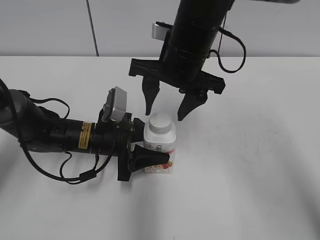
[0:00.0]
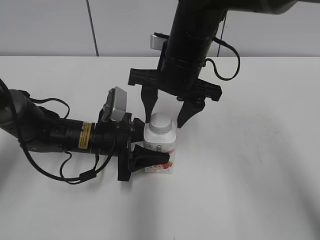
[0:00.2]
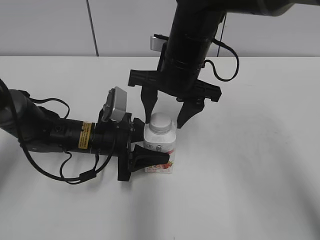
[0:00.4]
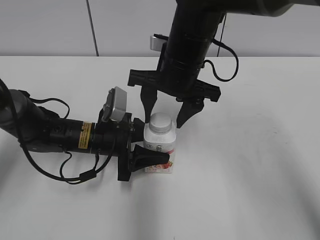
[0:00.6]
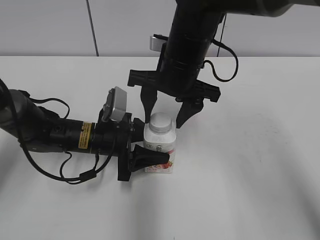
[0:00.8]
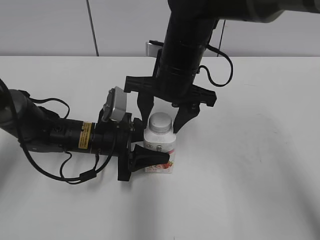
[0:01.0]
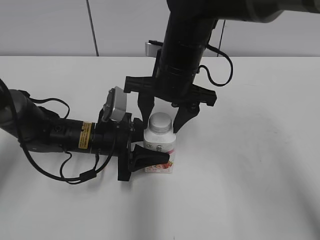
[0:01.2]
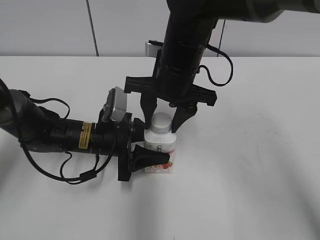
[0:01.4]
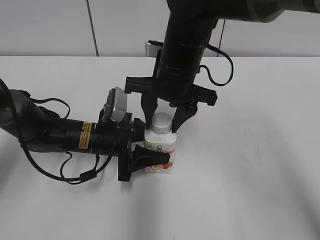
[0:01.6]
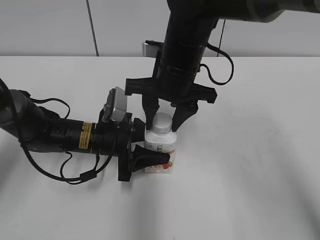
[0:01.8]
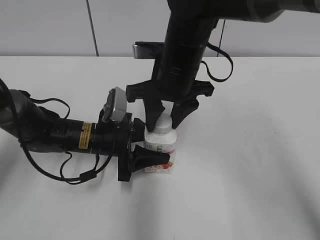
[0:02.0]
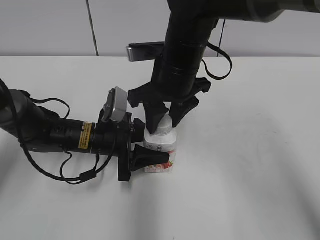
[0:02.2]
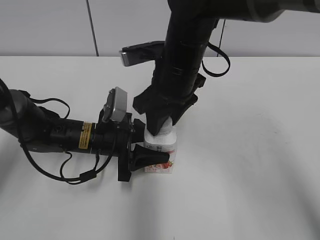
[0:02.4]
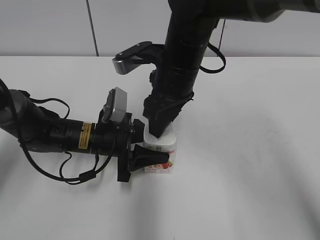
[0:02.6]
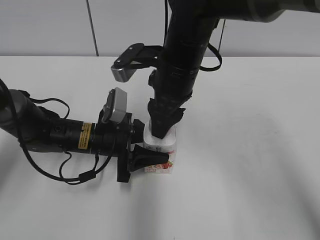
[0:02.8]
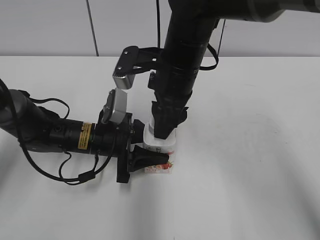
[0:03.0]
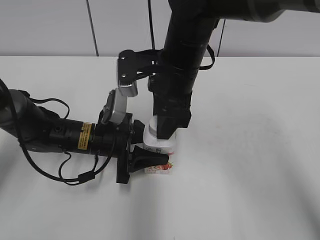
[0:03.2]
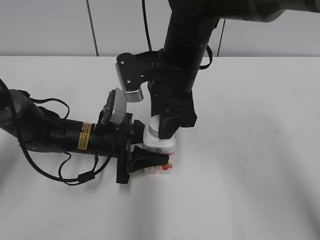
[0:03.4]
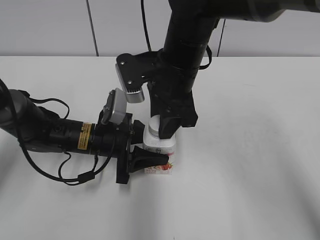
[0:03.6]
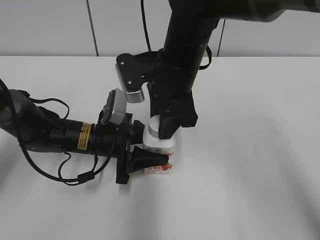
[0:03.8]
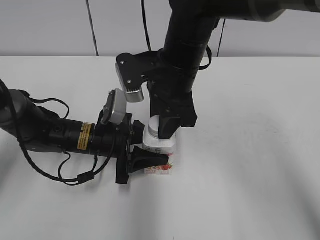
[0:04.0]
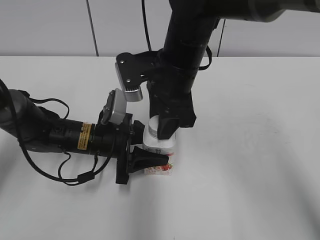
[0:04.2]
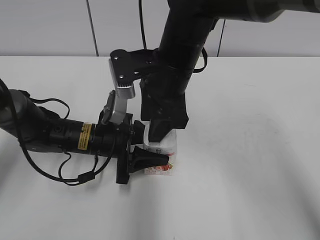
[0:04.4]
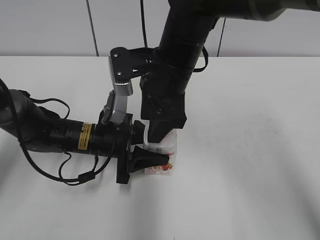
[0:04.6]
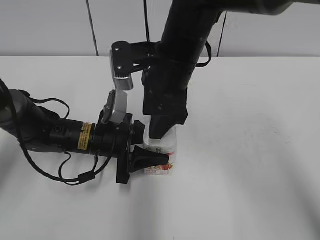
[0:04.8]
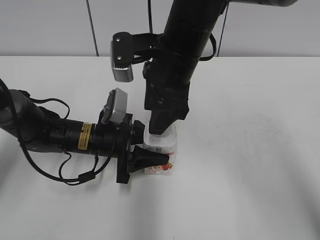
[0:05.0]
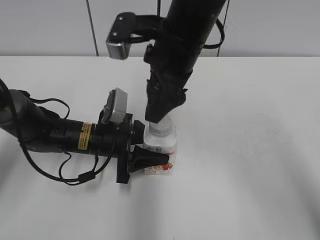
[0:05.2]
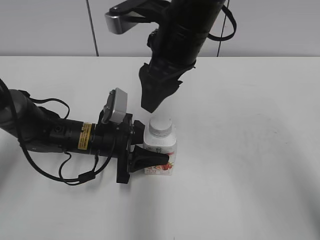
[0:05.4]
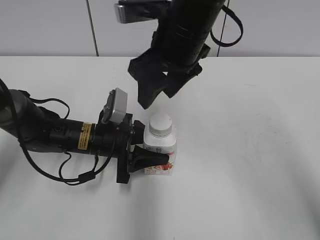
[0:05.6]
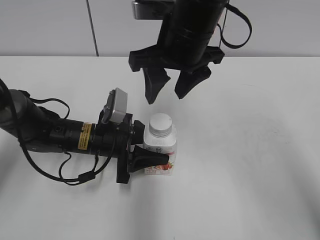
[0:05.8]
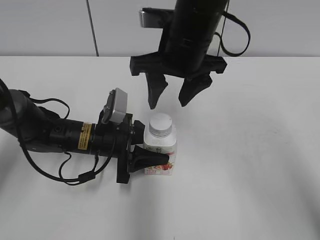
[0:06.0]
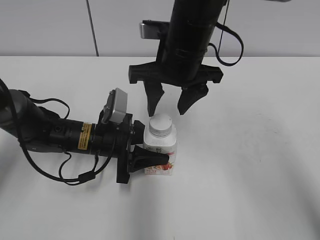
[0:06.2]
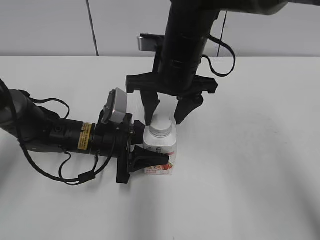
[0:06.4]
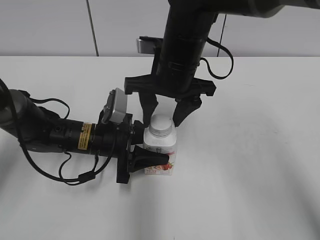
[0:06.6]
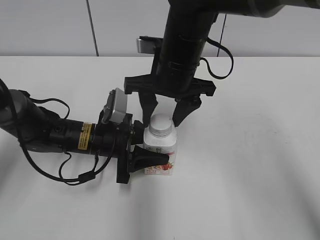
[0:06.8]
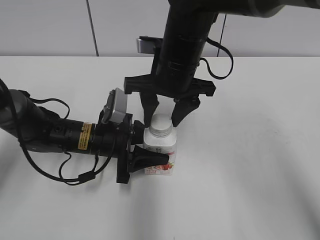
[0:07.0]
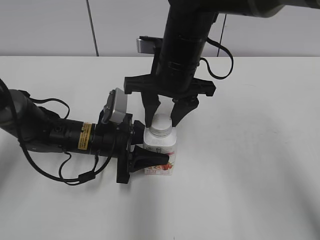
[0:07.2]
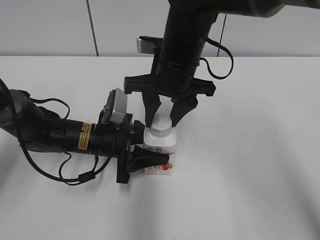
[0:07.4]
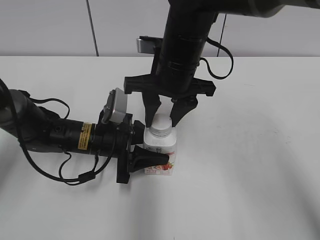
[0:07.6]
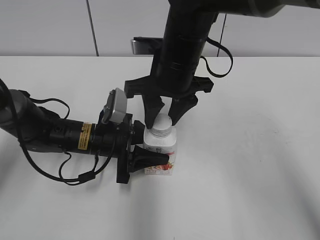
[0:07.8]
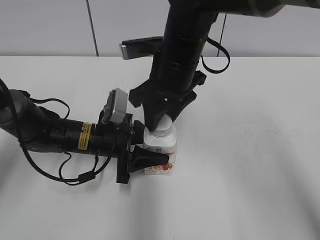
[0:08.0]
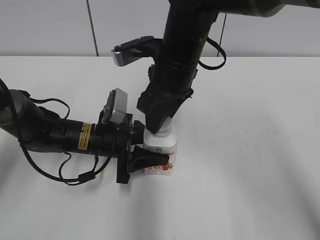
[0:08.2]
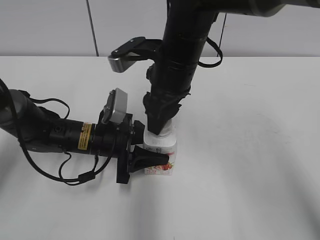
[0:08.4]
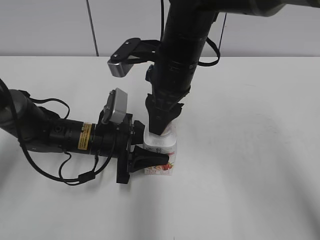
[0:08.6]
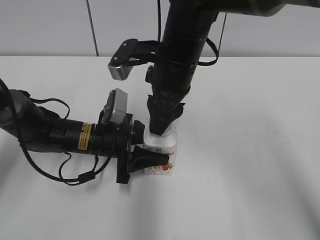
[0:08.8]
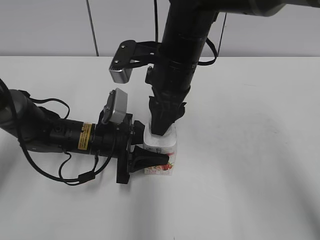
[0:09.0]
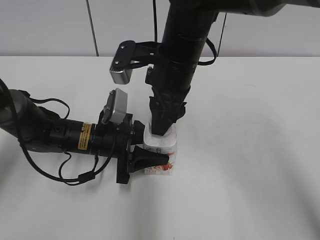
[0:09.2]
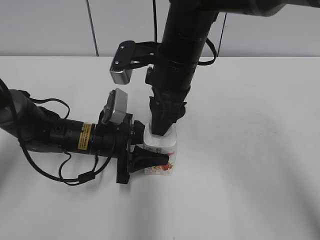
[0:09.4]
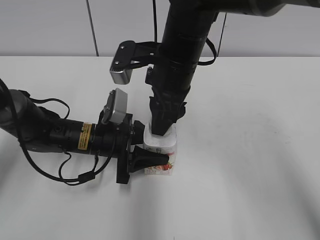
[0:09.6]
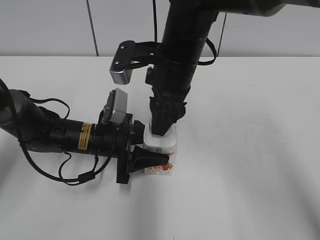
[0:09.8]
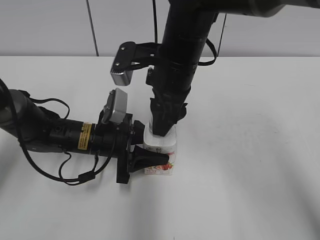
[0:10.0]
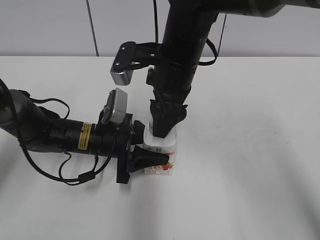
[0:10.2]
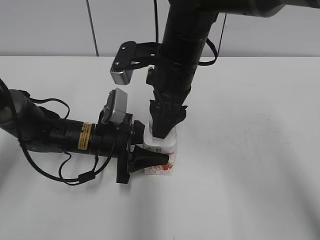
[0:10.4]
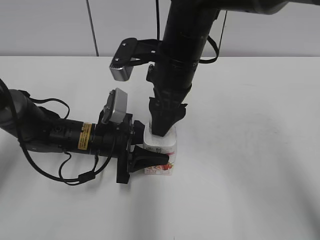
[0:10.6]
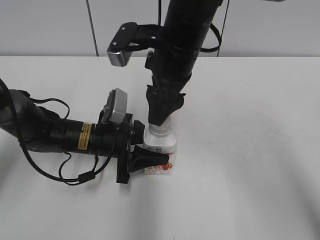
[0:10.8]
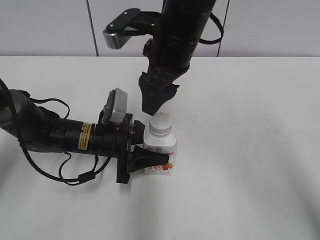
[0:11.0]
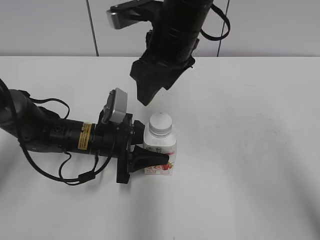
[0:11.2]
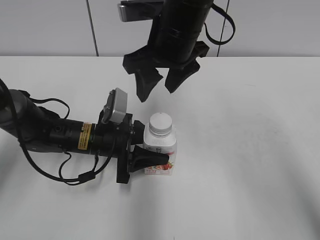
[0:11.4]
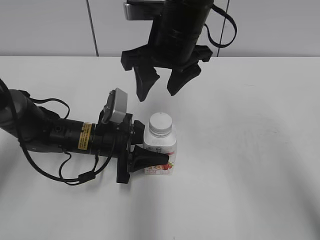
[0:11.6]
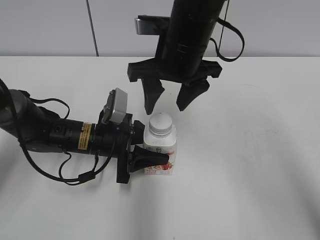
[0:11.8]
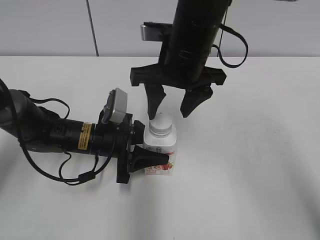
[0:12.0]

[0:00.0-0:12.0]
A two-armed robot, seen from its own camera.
0:00.0 to 0:01.6: The right gripper closes.
0:04.4 to 0:06.0: The right gripper changes place by some 5 cm.
0:06.0 to 0:07.6: The right gripper closes.
0:09.0 to 0:10.4: The right gripper opens up.

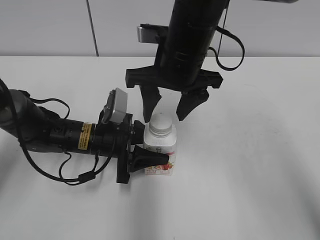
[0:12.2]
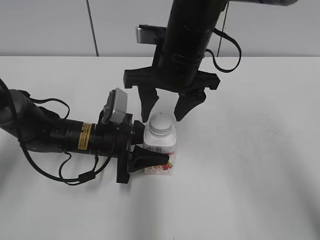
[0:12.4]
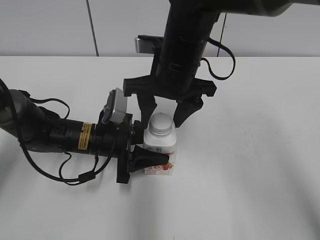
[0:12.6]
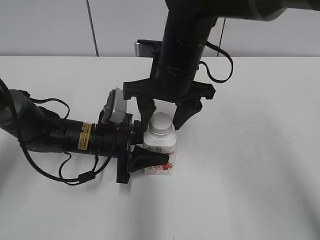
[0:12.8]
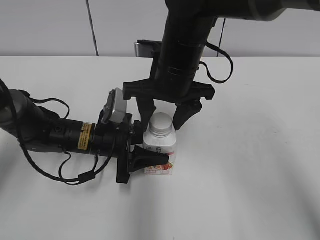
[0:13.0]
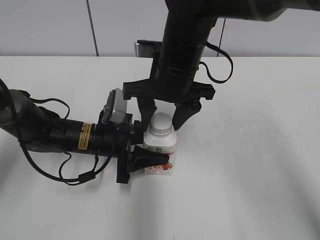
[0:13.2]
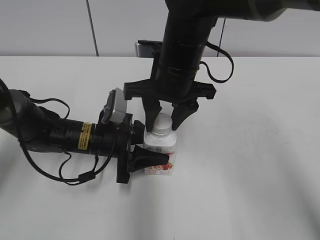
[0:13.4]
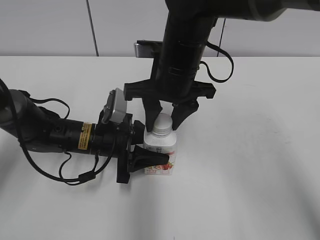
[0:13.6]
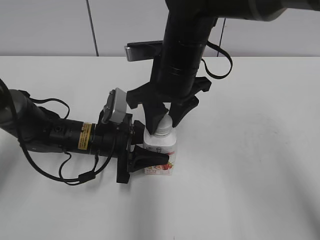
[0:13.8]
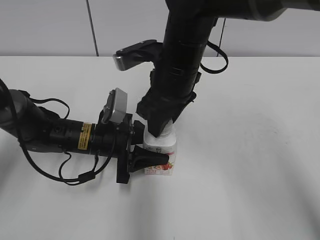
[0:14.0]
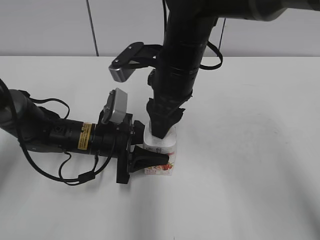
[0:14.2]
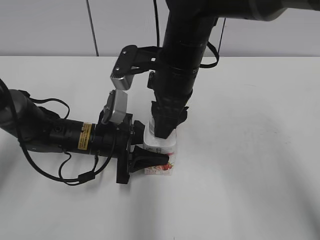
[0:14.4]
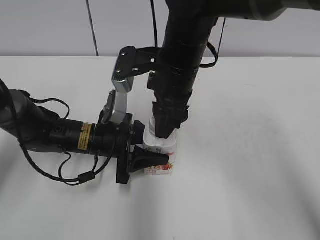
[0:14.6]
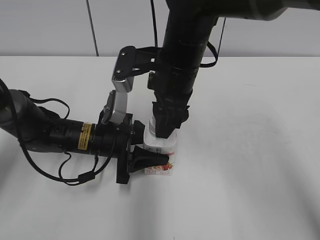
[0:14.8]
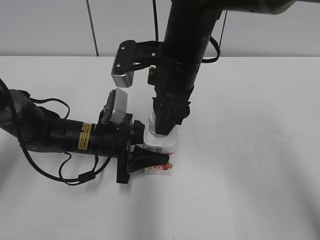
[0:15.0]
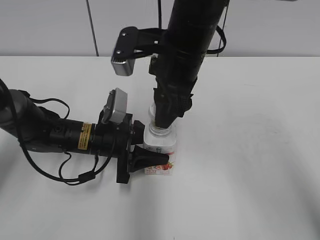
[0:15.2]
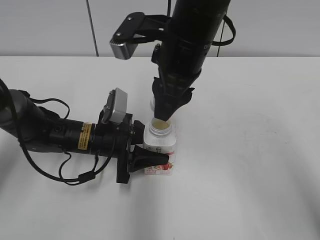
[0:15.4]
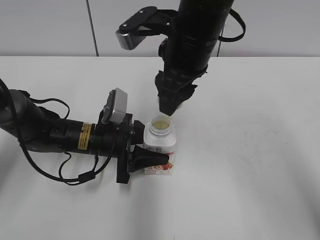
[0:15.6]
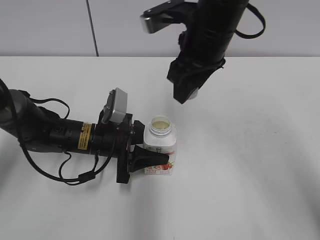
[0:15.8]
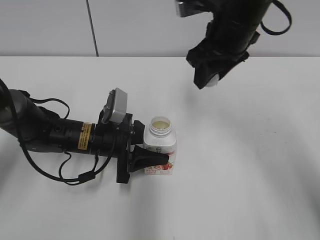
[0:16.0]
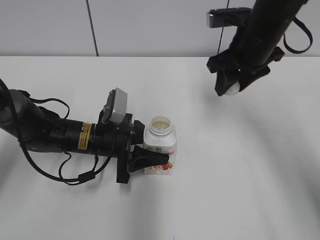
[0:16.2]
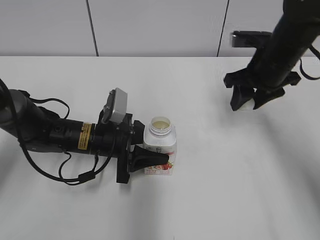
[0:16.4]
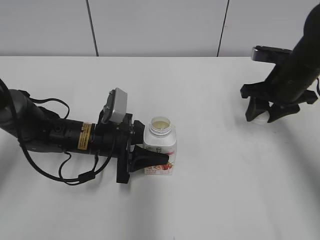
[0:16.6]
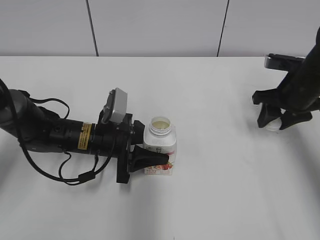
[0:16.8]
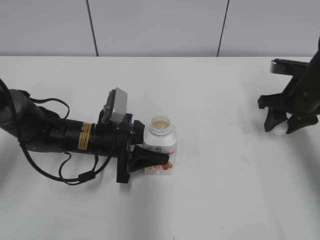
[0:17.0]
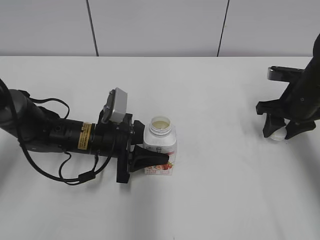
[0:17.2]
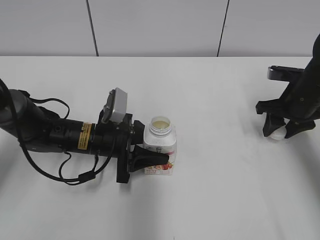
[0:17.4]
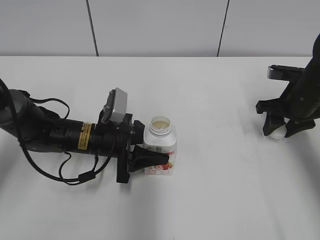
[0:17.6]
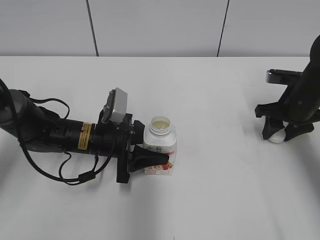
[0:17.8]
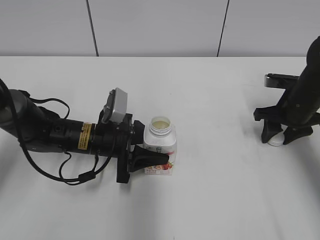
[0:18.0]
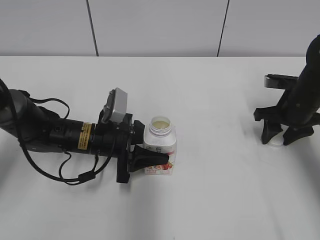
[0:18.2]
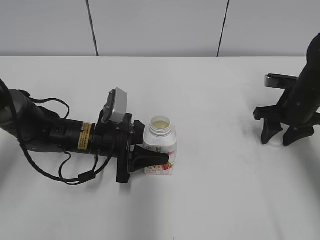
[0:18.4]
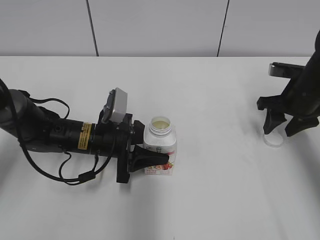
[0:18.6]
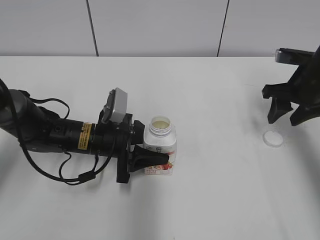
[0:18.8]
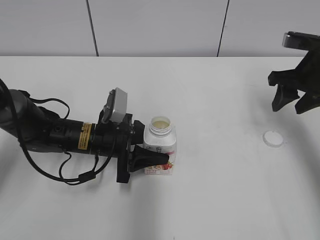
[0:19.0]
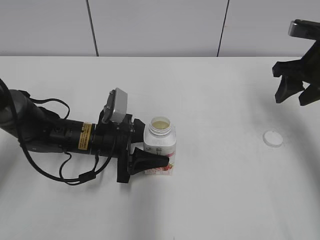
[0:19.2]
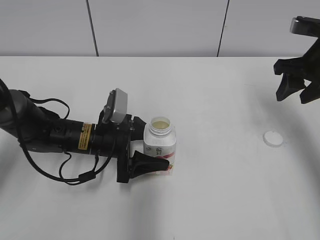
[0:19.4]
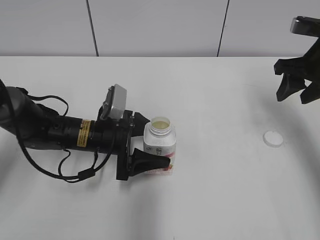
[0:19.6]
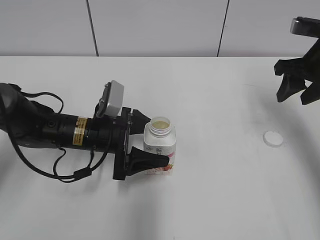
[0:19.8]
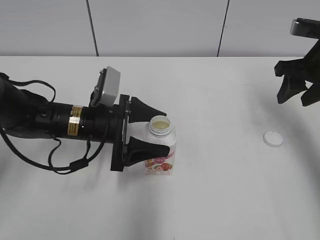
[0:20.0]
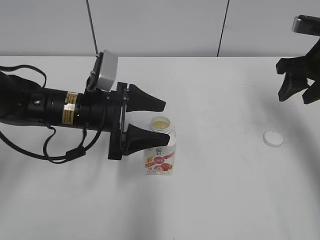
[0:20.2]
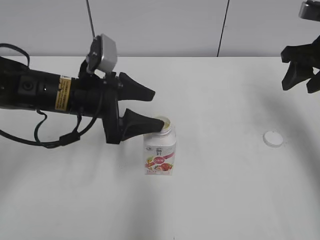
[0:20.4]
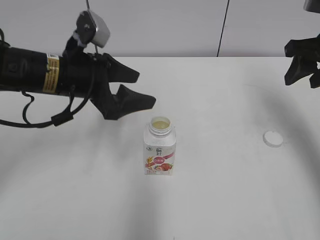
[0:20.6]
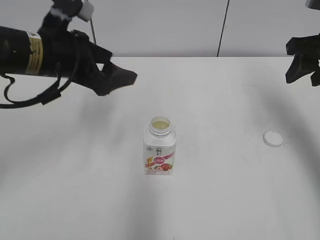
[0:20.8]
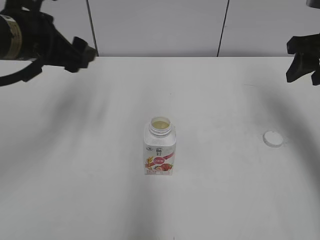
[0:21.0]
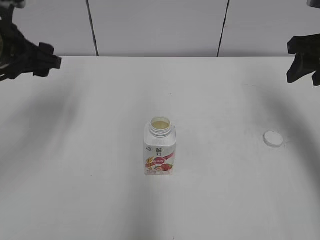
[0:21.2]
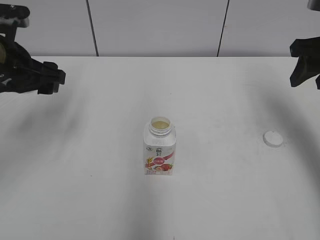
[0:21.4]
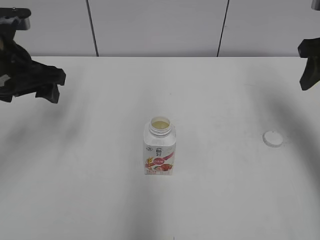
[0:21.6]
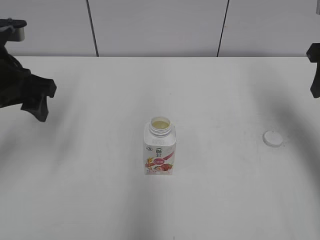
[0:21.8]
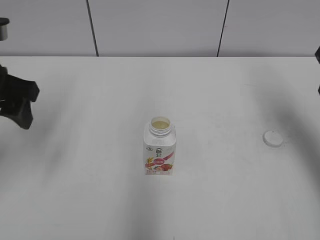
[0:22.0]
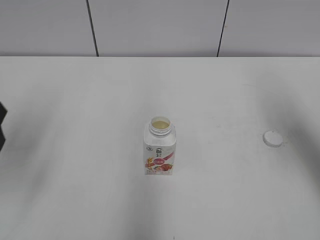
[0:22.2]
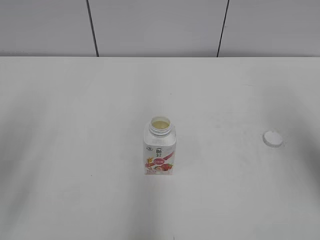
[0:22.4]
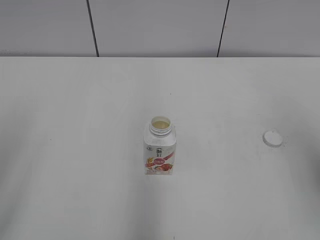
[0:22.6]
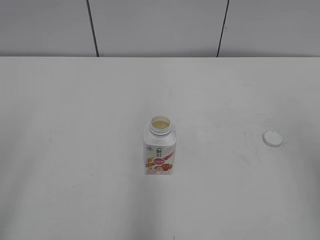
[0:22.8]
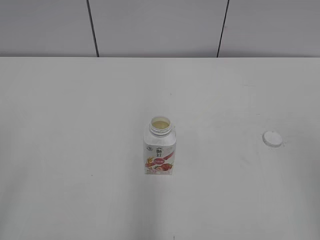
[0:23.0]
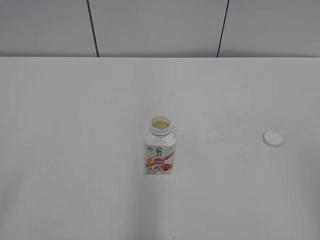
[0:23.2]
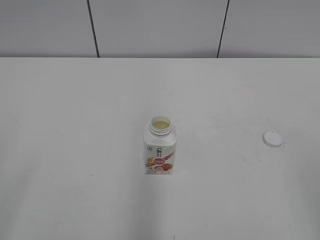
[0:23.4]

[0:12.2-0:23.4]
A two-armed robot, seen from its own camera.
Step, 0:12.2 to 0:15.0: Twist the bottle cap with the right hand.
Step, 0:15.4 to 0:18.4: Place the bottle cap on the right.
0:12.2 to 0:13.8: The right gripper closes.
0:15.4 to 0:17.0: The right gripper heads to the right and downward, covering about 25 cm.
0:17.0 to 0:18.6: There are only small adjustments of the grippers.
0:18.6 to 0:20.2: Both grippers travel together upward, some 10 cm. The left gripper opens.
0:20.2 to 0:21.8: The left gripper moves upward and to the left, about 15 cm. Meanwhile the right gripper goes about 5 cm upward.
0:21.8 to 0:23.4: The two grippers go some 30 cm backward.
